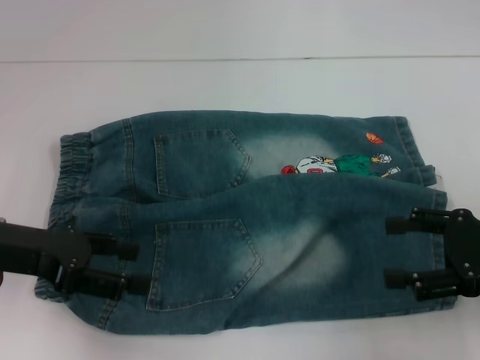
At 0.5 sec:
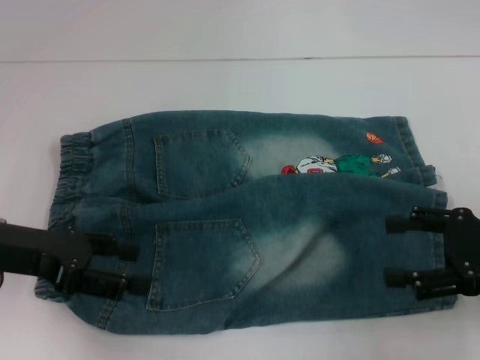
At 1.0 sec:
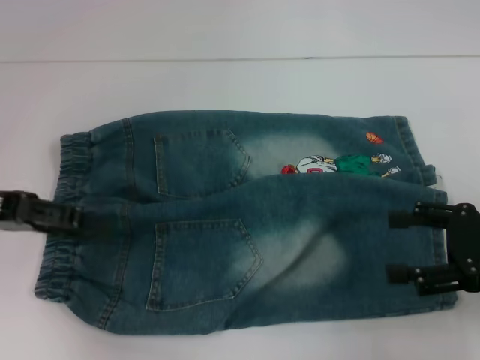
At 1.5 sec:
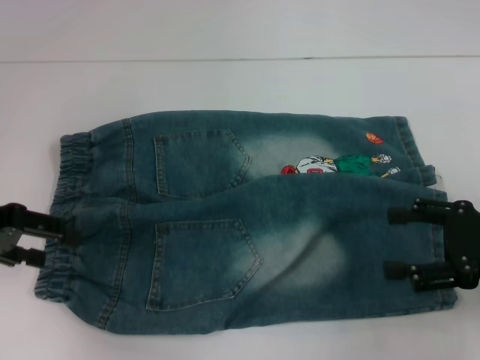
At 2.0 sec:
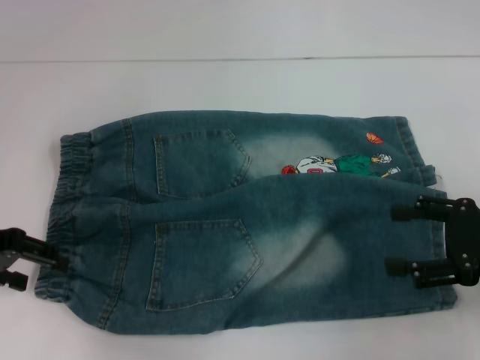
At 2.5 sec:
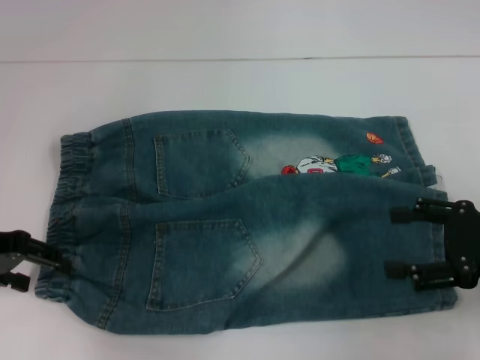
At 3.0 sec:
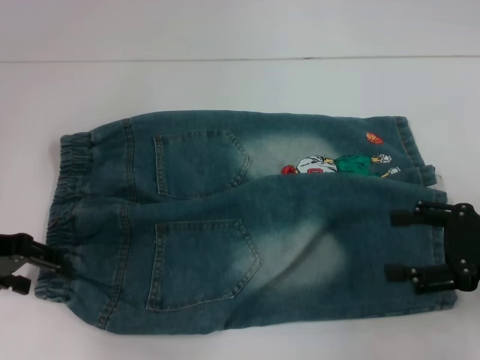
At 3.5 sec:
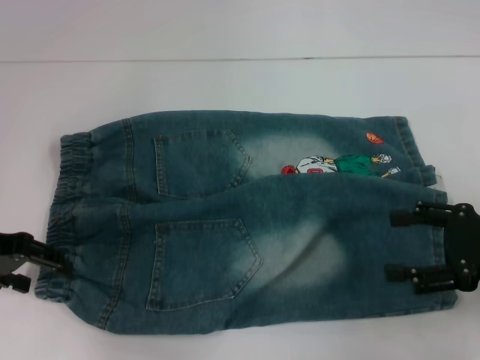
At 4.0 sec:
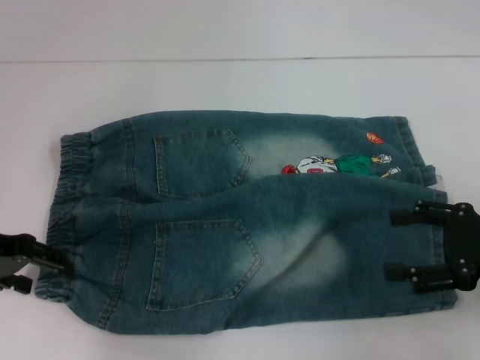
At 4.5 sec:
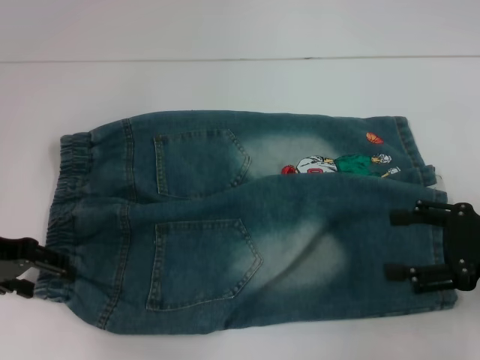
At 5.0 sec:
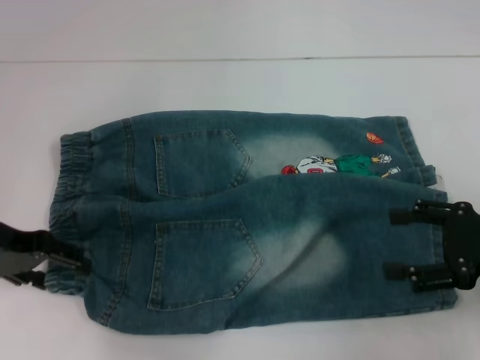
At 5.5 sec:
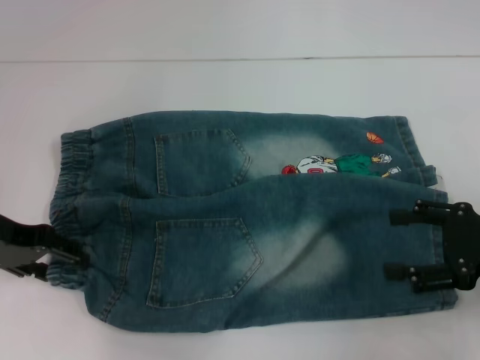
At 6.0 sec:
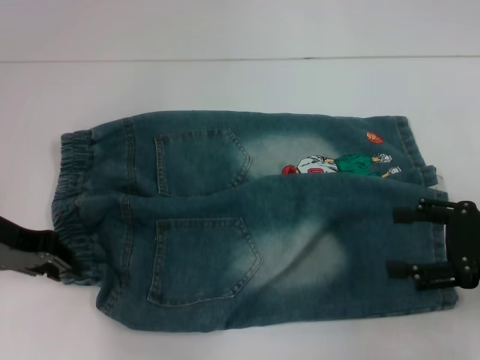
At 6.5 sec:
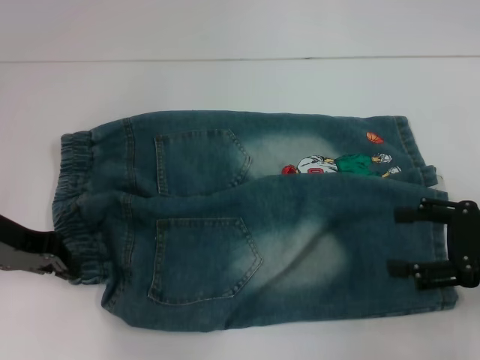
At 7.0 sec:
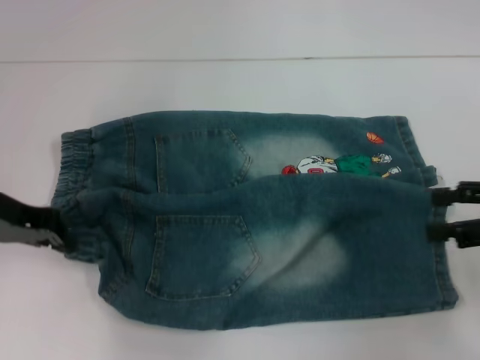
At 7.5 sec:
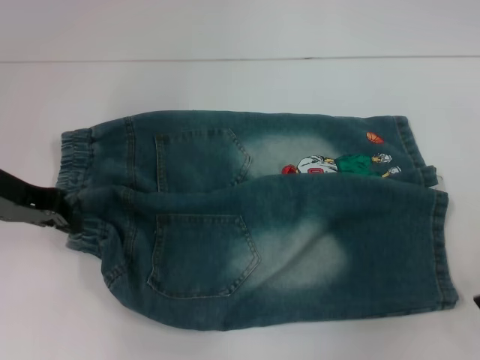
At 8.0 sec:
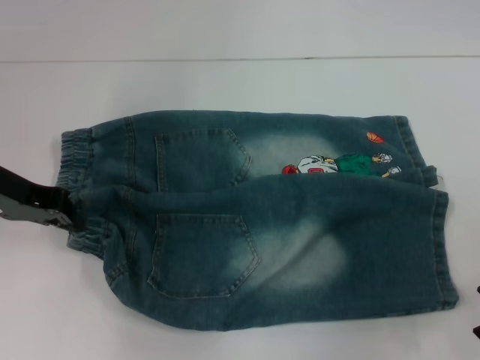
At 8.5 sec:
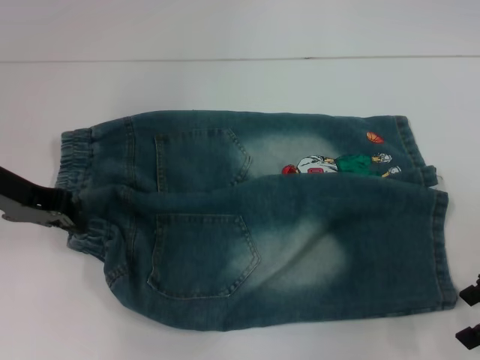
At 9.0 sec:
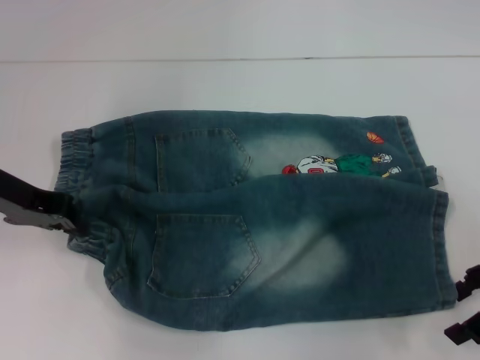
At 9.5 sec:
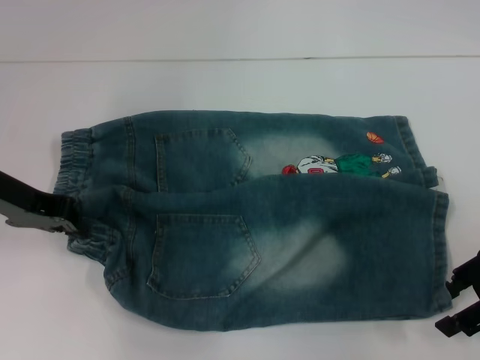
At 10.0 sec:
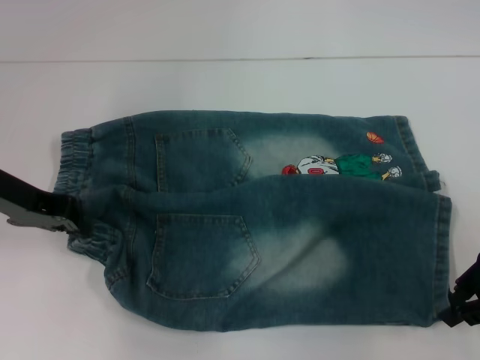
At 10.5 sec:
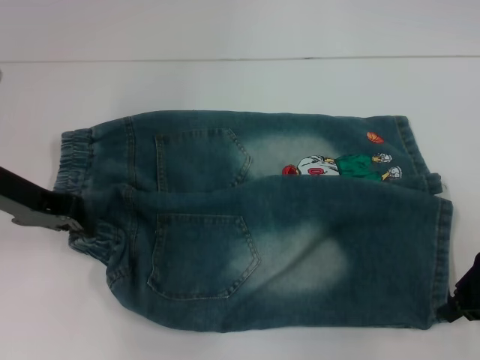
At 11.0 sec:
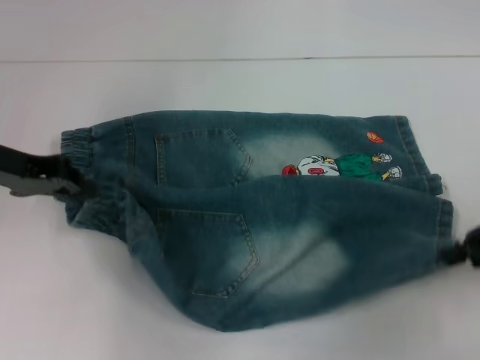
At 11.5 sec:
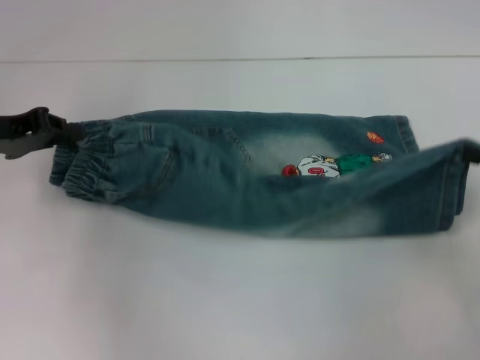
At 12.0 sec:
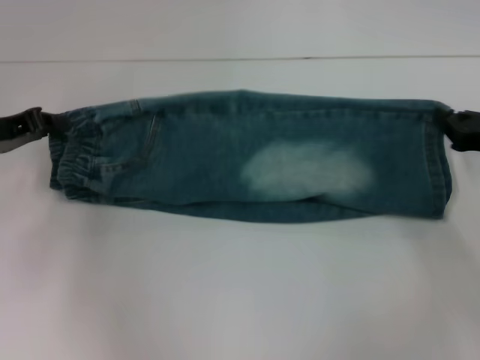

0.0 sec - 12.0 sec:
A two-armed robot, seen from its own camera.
Step, 0.0 sec - 6.5 sec: Hold the lower left waistband with your left hand.
Step, 7.0 sec - 10.0 sec: Grab the lower right pant leg with your right hand.
0.0 sec - 2.0 sec: The left gripper shifts by approximately 5 cm.
2.0 sec - 4.0 sec: The grippers stay close to where they were, moving slightly.
4.0 sec - 6.0 sec: The left gripper closes up.
6.0 sec - 8.0 sec: The left gripper closes up. The right gripper moves approximately 5 cm.
8.0 sec - 10.0 sec: The right gripper closes.
10.0 sec - 12.0 sec: The right gripper travels downward by some 5 cm.

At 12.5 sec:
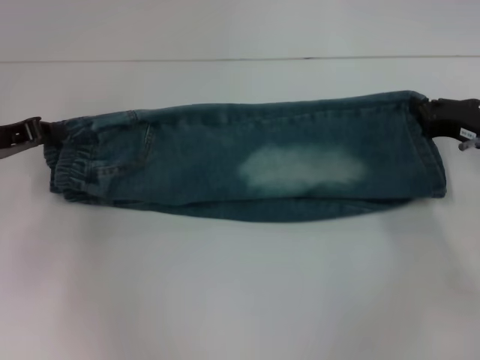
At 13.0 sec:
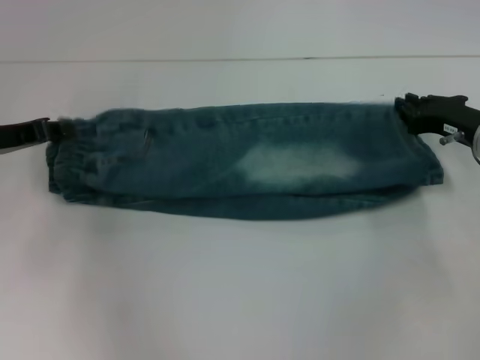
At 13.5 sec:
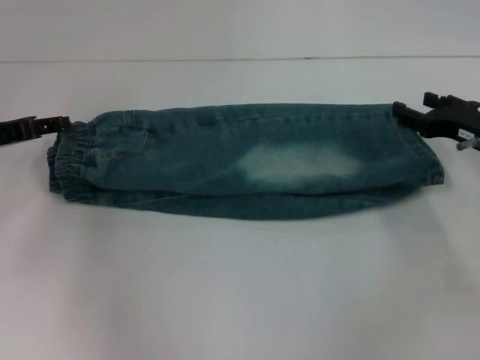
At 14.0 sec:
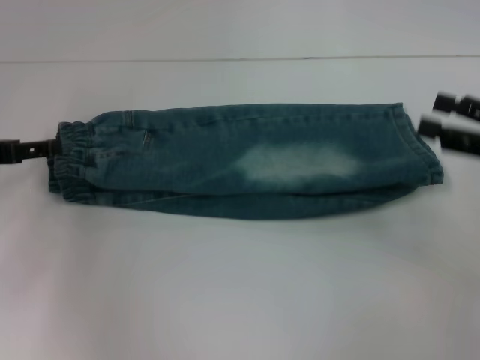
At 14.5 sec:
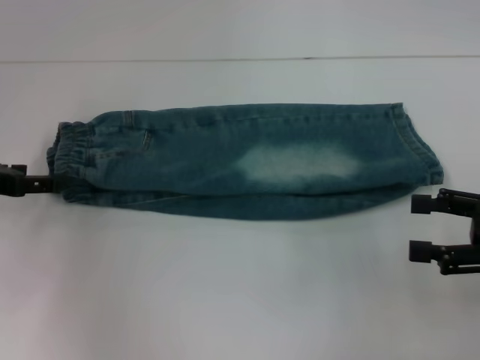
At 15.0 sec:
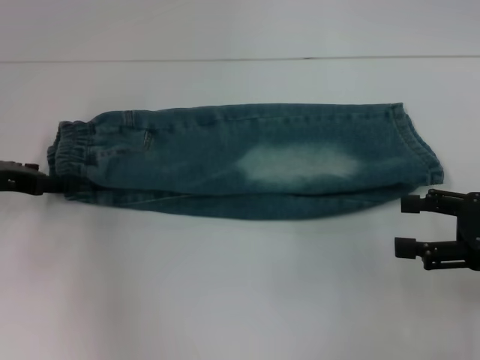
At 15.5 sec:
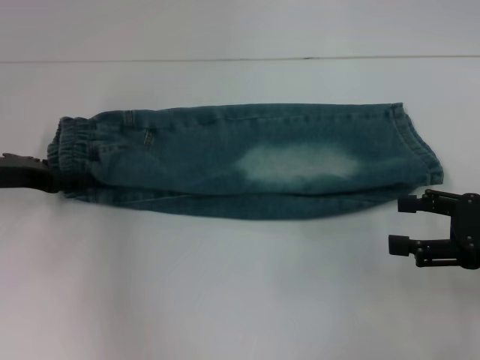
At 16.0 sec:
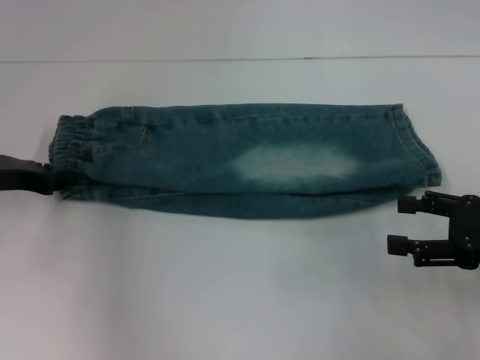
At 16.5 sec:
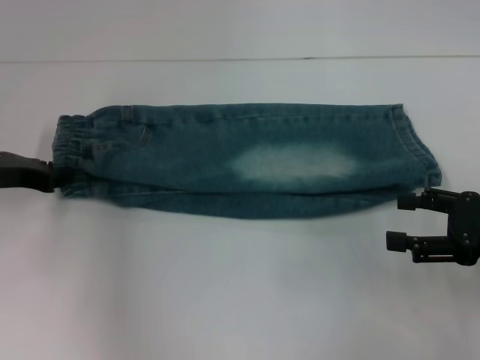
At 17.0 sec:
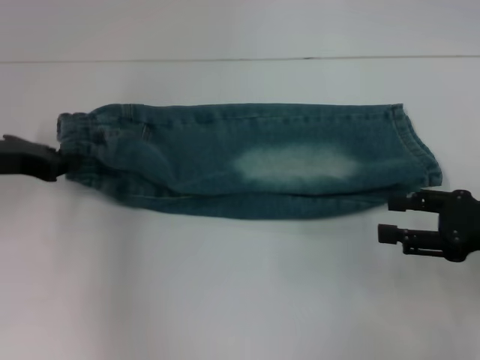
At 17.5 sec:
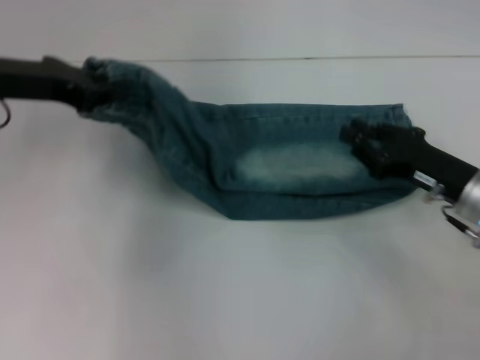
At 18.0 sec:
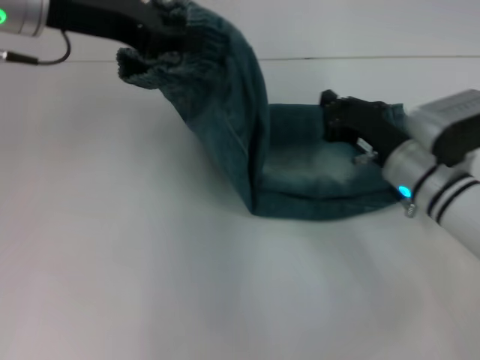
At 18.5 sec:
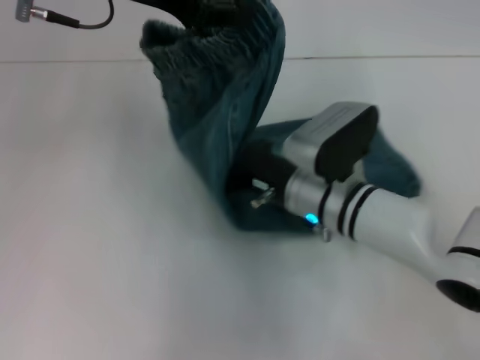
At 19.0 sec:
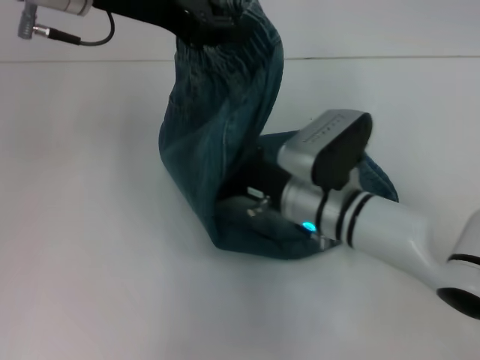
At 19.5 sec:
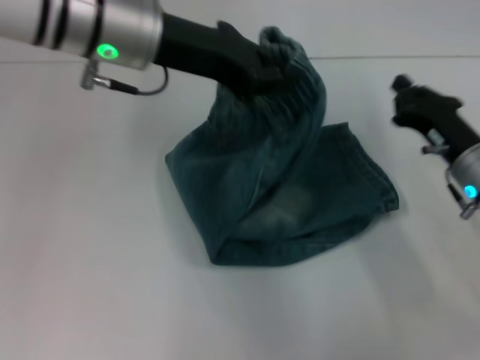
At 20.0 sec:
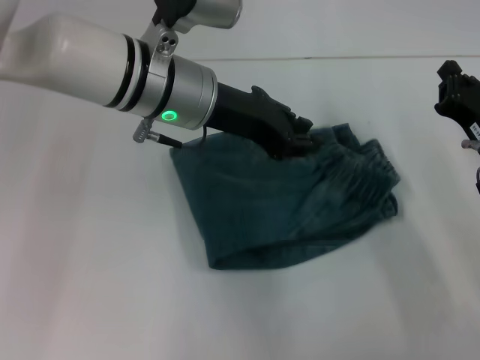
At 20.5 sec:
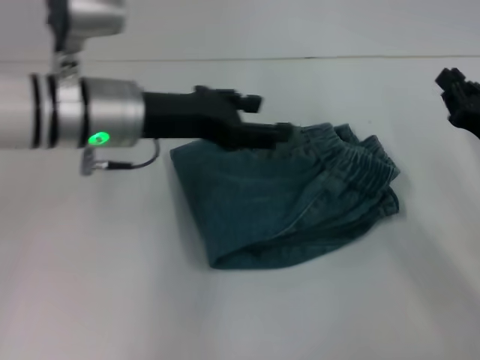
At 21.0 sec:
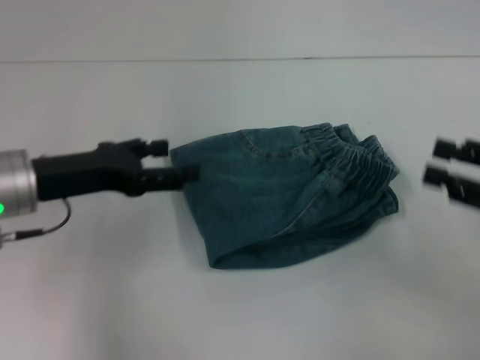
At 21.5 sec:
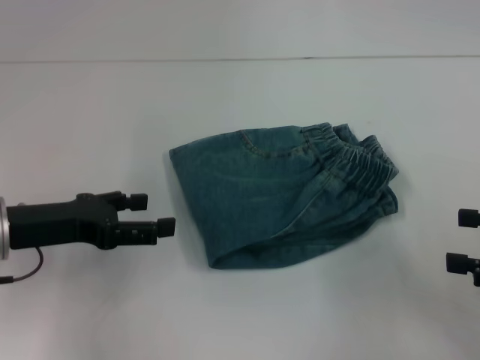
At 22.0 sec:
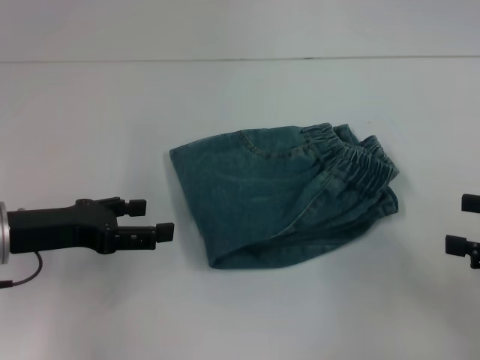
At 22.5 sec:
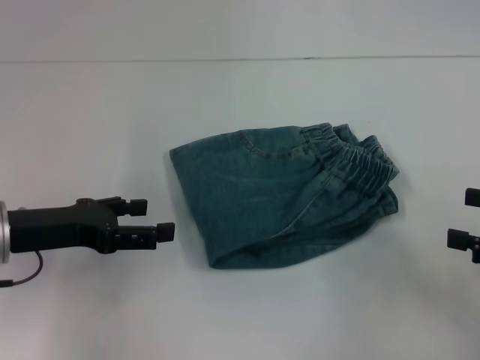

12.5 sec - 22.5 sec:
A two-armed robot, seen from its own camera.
Step, 14.0 sec - 16.5 sec: Hold the waistband with your left hand.
Step, 17.0 sec - 19.0 sec: Press the middle of the pants with your right hand.
Step, 19.5 sec - 20.0 sec: Fold to the right with your left hand.
12.5 sec - 14.5 sec: The left gripper opens up, while the right gripper travels backward by some 10 cm, and opens.
14.5 sec - 16.5 sec: The left gripper closes.
16.5 sec - 18.5 sec: The left gripper is displaced upward and to the right by roughly 25 cm; the right gripper travels to the left by approximately 25 cm, and closes.
18.5 sec - 20.5 sec: The left gripper goes some 15 cm downward and backward, and opens its fingers, while the right gripper moves to the right, roughly 20 cm.
20.5 sec - 22.5 sec: The right gripper travels backward, to the right and upward by about 10 cm, and opens its fingers. The left gripper heads to the left, backward and downward, covering some 15 cm, and opens its fingers.

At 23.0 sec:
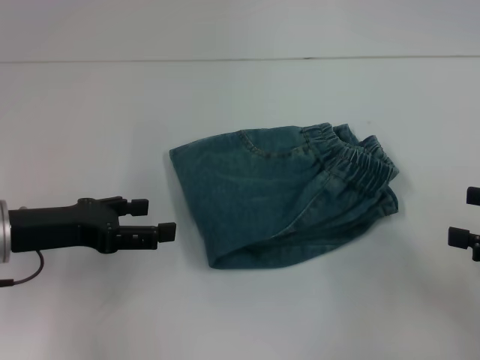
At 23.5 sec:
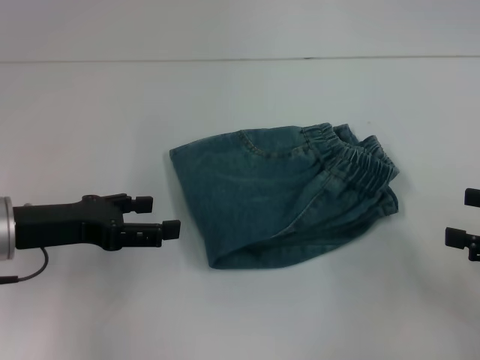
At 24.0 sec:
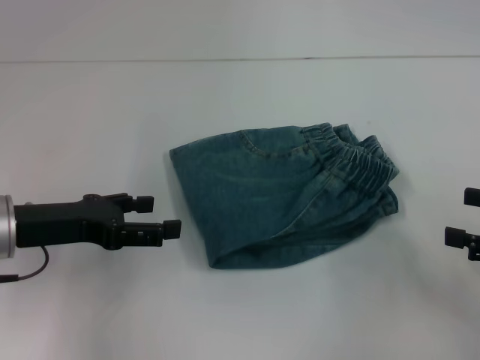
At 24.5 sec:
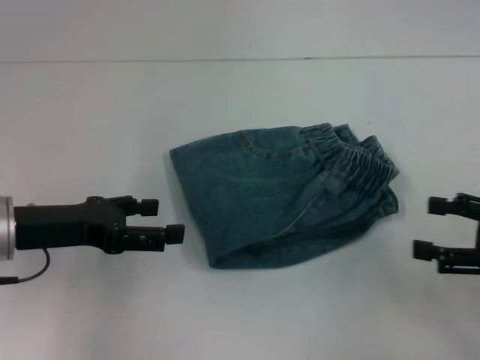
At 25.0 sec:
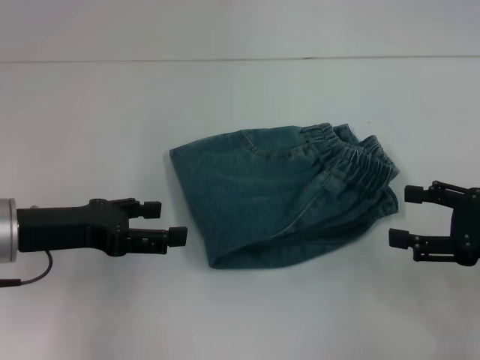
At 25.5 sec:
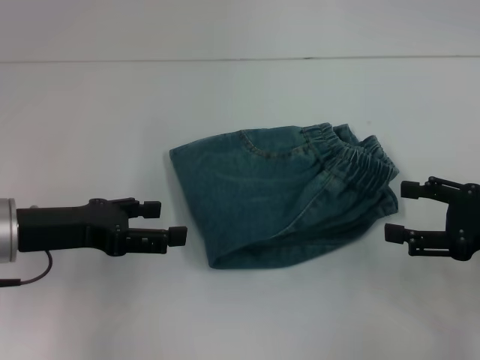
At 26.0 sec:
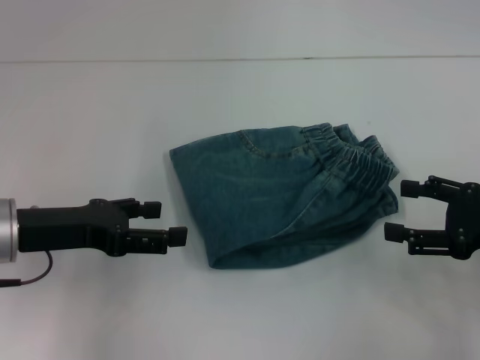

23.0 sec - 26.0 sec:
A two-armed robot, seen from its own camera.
23.0 sec - 26.0 sec: The grippers move only a little.
